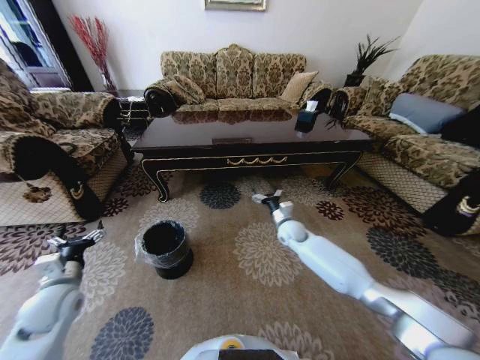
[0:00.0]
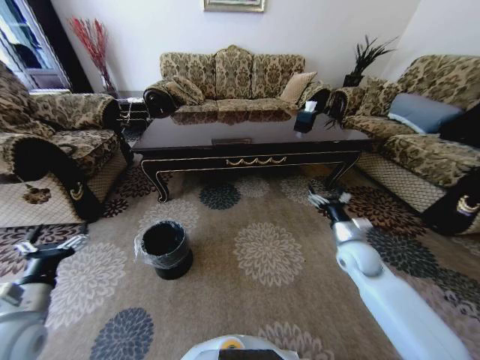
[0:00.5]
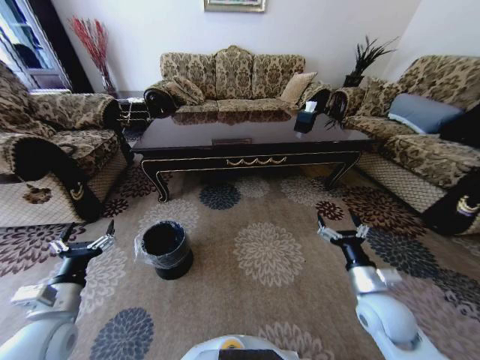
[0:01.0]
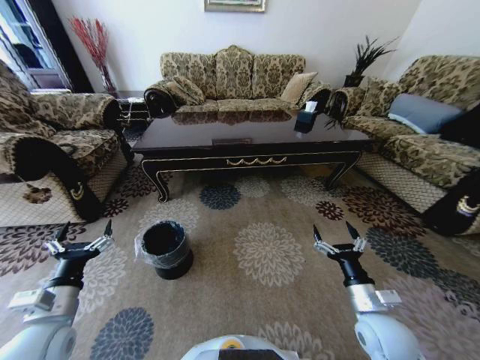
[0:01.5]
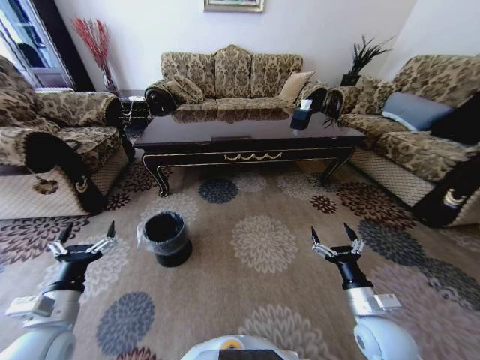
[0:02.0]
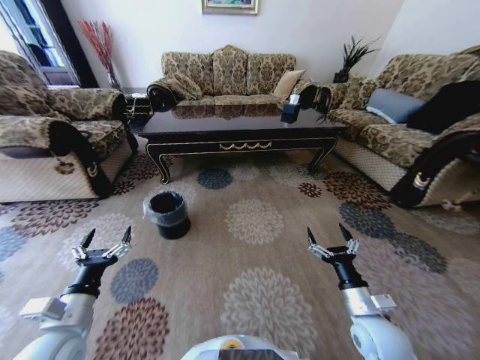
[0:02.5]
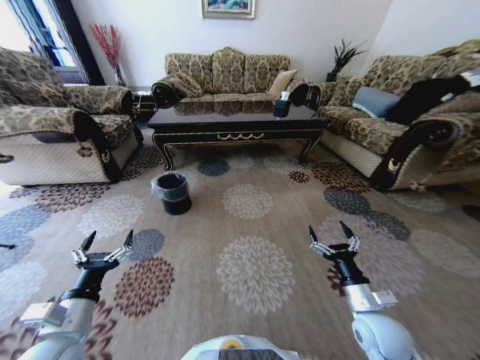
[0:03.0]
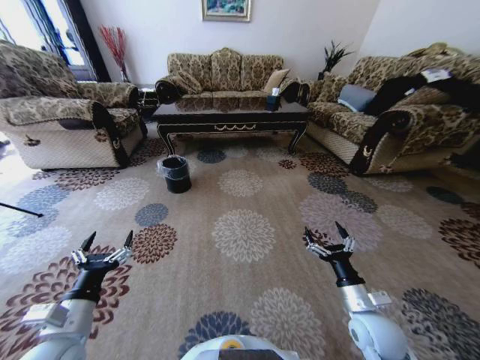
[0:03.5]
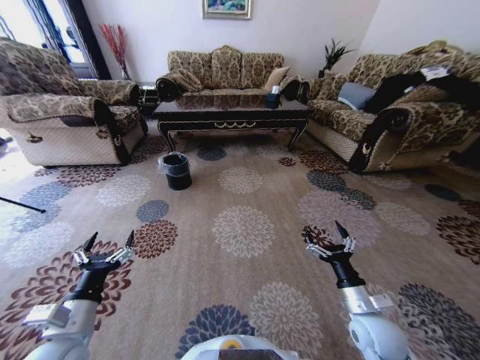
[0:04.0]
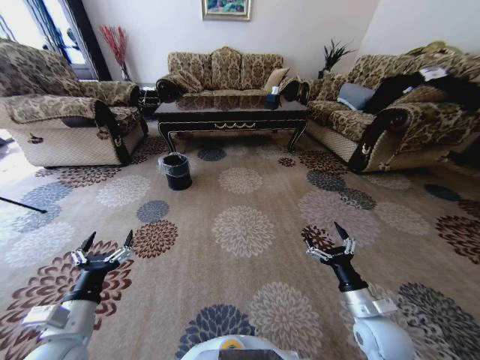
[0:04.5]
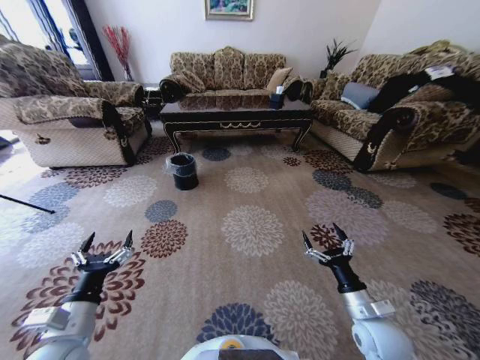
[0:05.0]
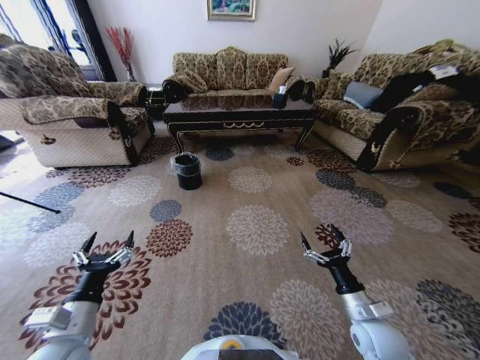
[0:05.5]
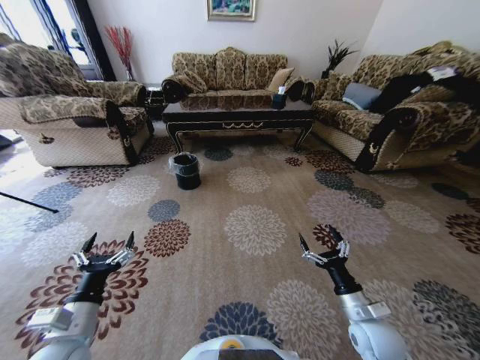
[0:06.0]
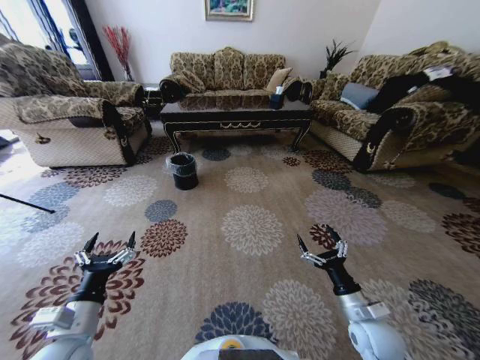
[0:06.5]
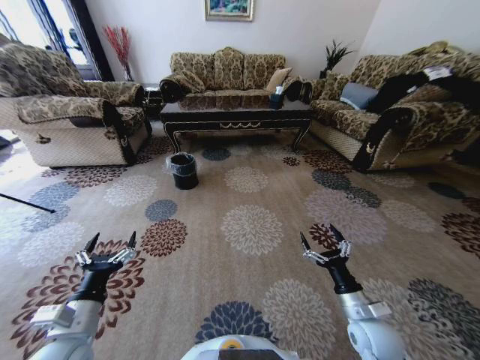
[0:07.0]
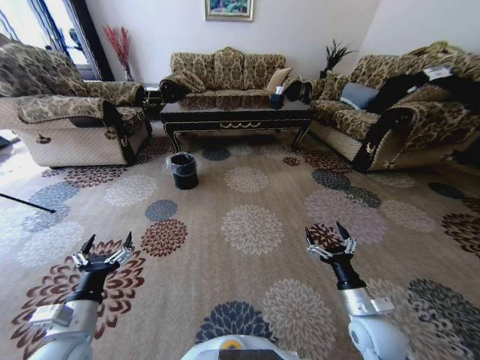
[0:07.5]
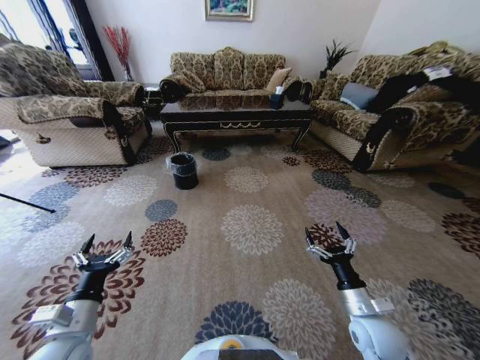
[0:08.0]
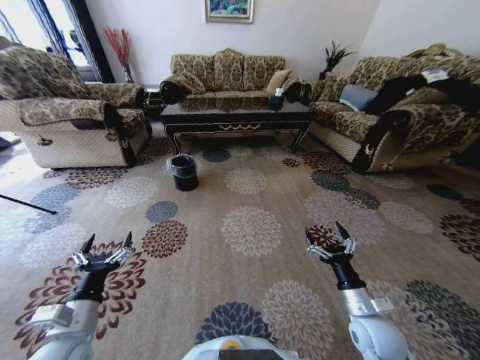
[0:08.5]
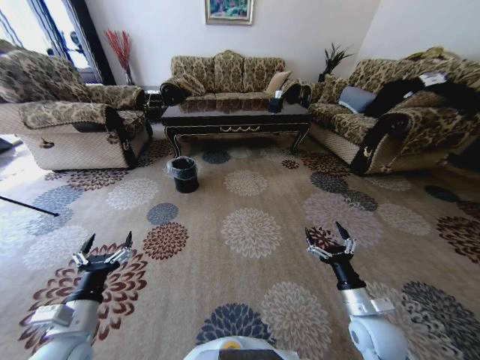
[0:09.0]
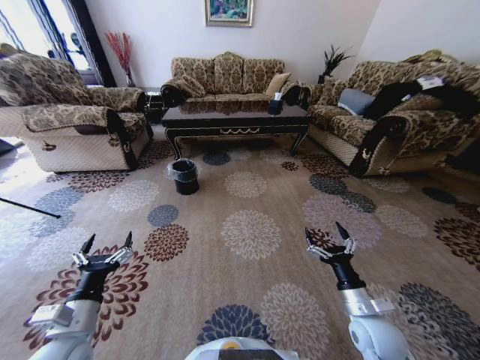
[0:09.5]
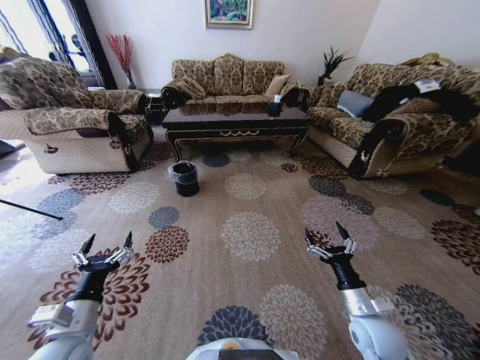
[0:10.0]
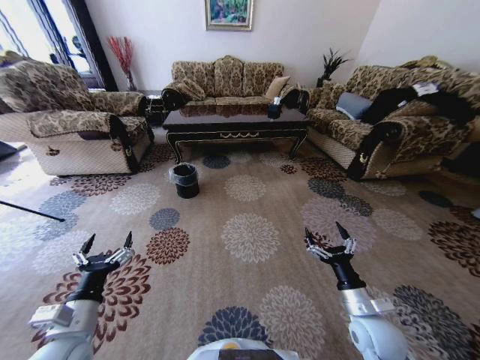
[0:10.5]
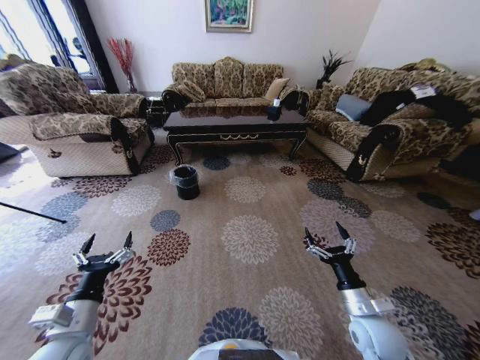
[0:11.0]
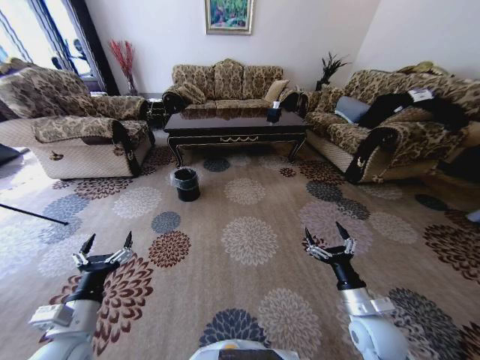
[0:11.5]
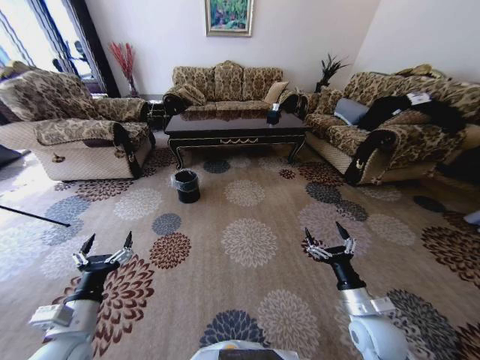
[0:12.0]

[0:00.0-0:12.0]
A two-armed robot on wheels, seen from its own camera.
Task of the whole recording: Move to the front of the table and pick up the trash from the floor, then place it into the trash bin.
0:00.0 to 0:02.0: The right gripper travels backward by approximately 30 cm, while the left gripper shifts some 10 cm backward and to the right.
0:06.0 to 0:08.0: The grippers stay close to where they were, moving slightly.
